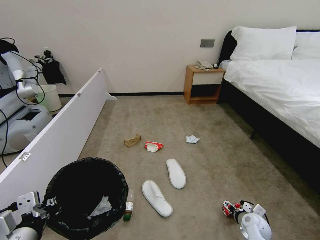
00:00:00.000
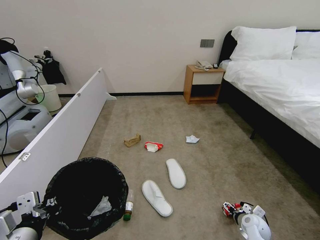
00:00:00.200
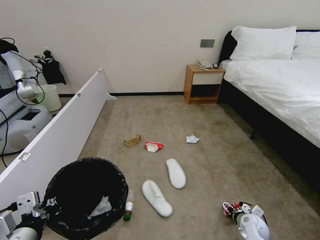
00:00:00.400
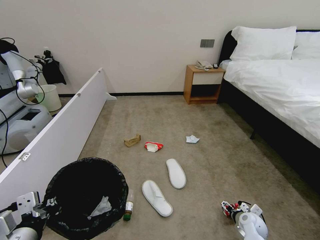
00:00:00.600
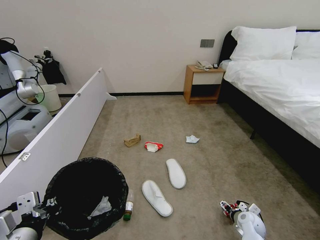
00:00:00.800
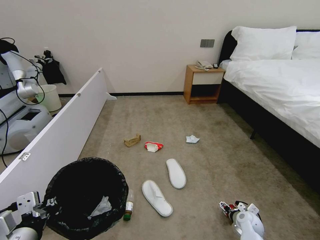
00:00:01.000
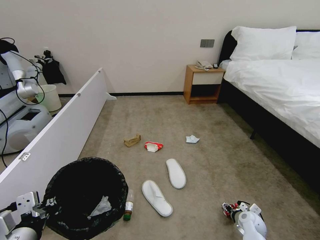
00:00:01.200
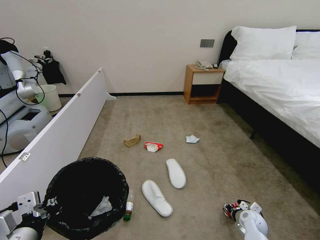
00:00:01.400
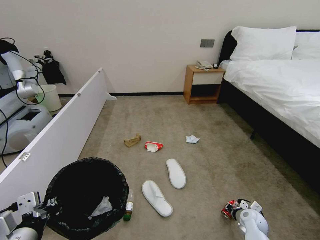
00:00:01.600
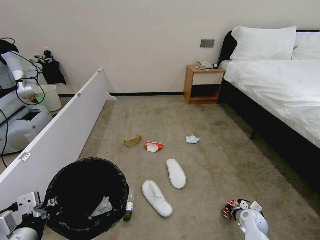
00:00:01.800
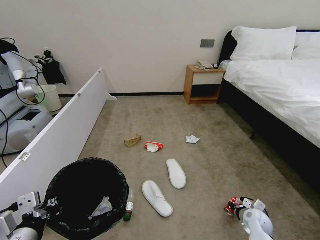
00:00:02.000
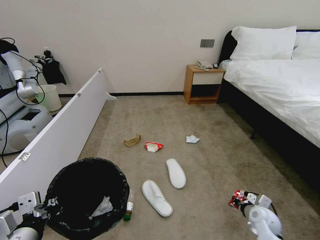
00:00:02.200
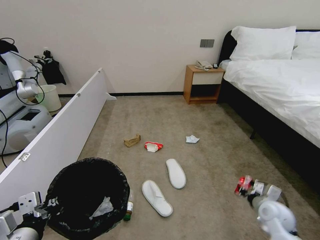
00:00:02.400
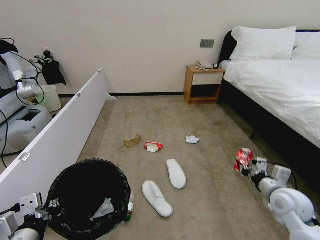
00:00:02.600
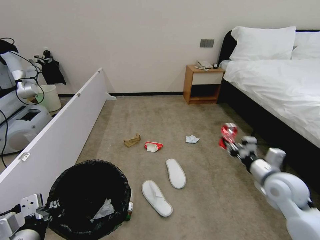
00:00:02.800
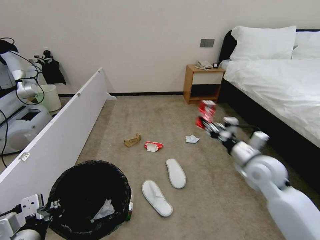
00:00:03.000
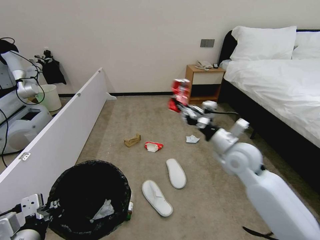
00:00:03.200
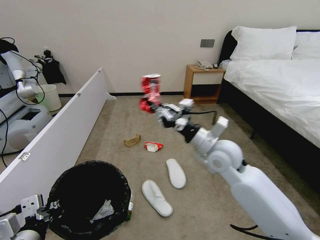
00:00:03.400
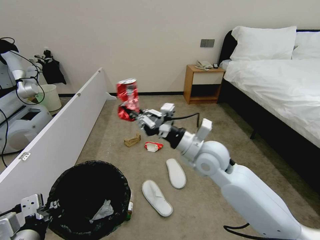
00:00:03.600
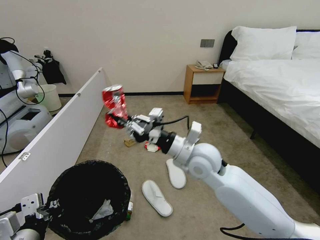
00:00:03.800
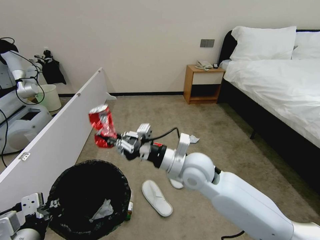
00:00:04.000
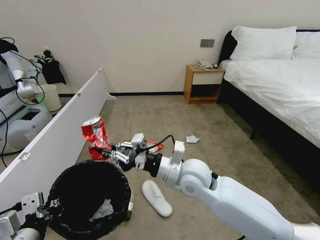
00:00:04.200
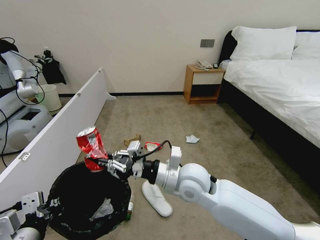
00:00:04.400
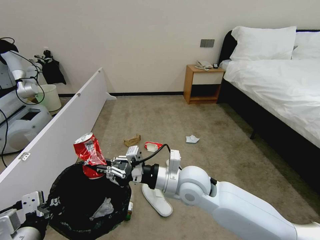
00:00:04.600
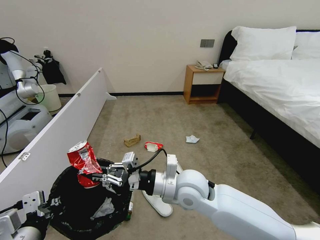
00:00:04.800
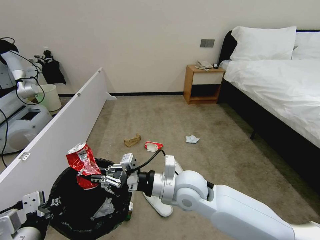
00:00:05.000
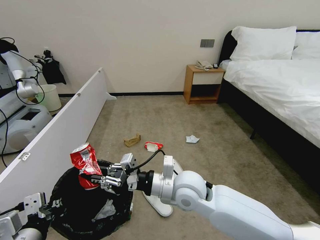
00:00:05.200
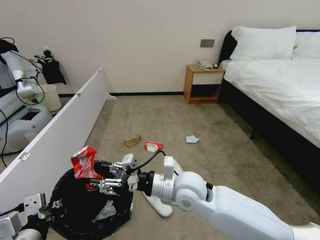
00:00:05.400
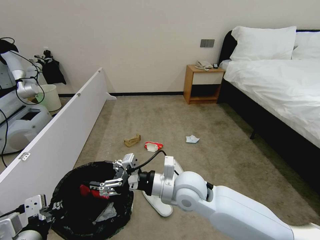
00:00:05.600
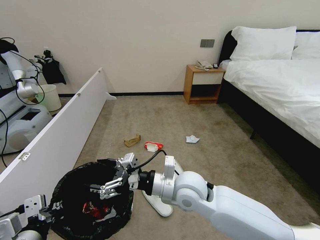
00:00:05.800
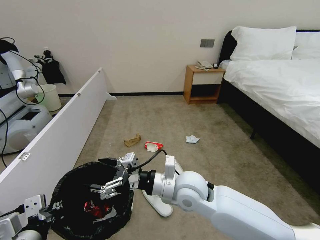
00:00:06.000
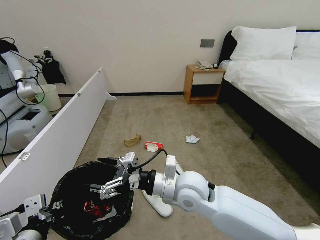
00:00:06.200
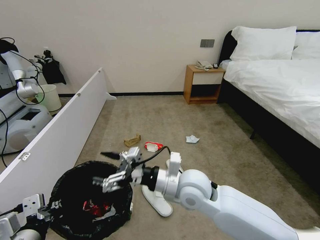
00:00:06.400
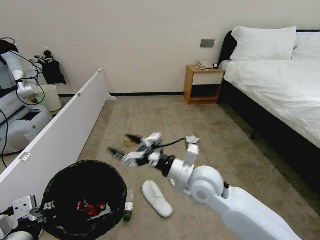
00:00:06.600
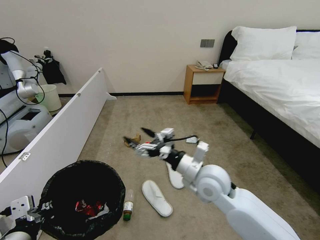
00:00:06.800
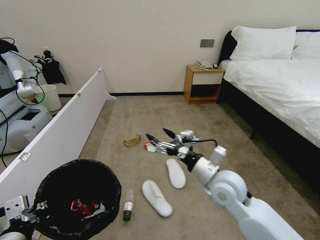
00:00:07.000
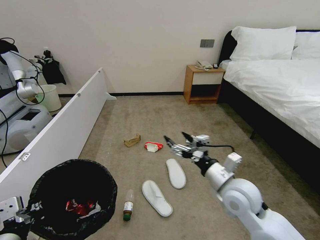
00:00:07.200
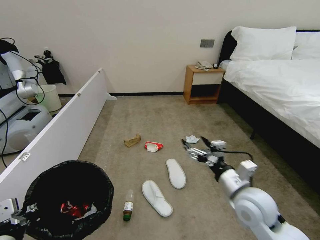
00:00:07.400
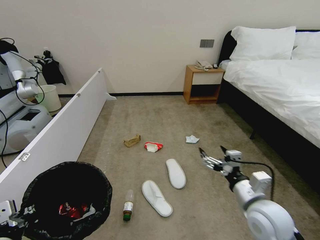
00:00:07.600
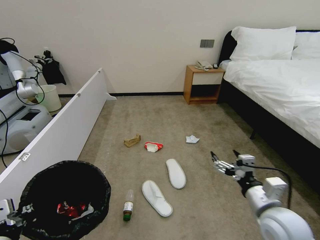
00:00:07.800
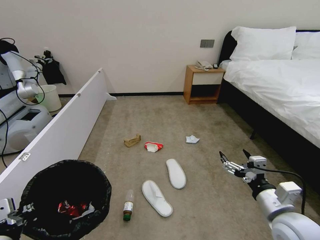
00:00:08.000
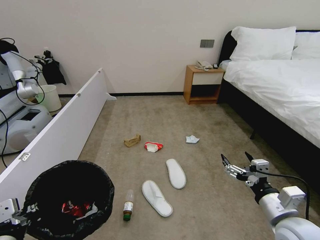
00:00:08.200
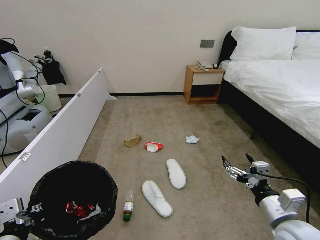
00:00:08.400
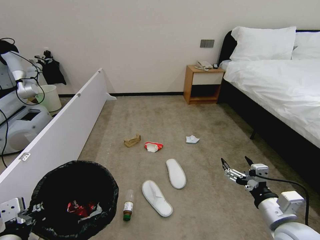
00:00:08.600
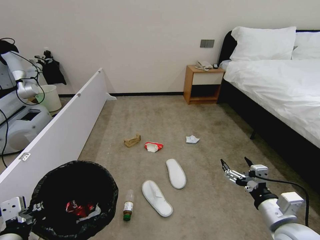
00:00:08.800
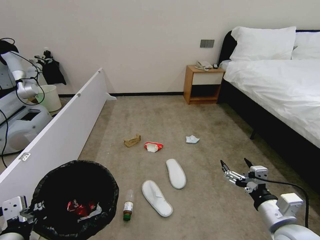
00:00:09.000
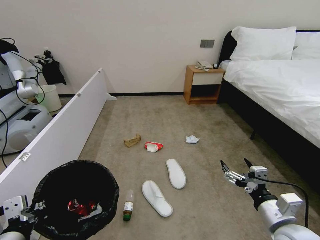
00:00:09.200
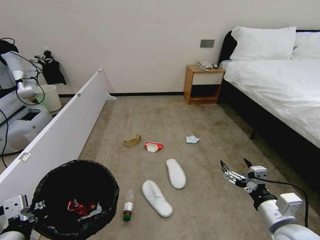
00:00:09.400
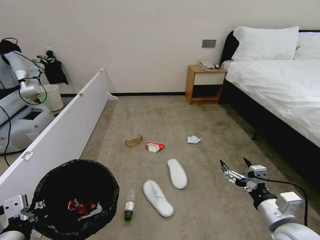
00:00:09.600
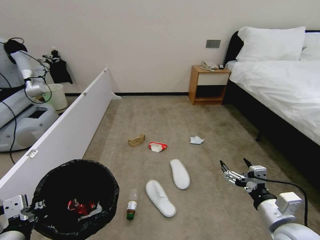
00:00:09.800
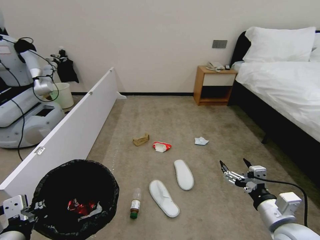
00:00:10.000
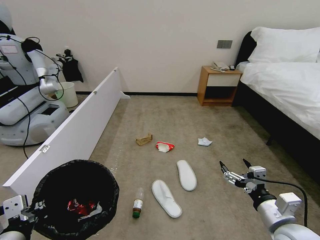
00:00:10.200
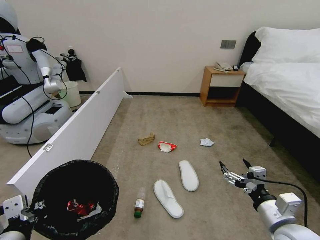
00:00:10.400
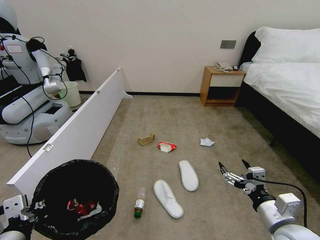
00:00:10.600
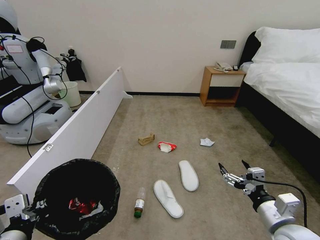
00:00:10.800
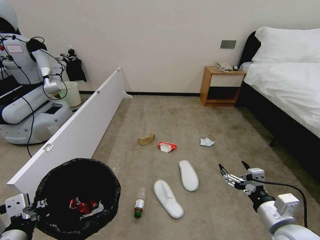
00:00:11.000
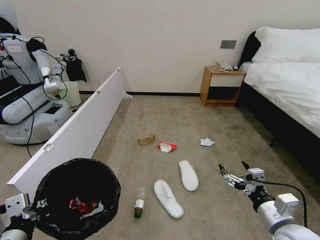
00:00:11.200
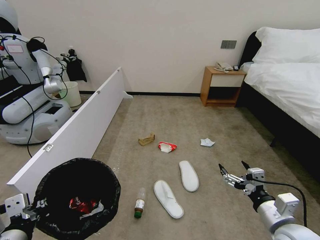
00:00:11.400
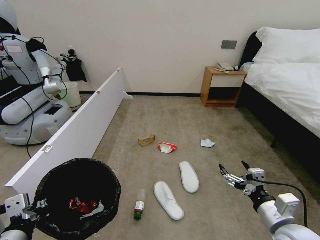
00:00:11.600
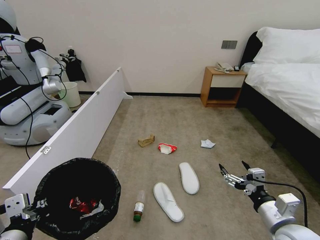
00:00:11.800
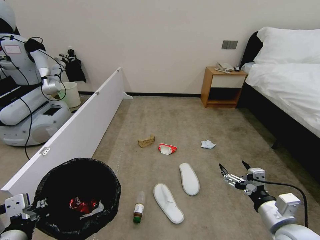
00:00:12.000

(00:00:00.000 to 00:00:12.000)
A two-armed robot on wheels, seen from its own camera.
Task of the whole recording: Pick up the trash bin, then pick up the garbage from the floor and place it into the trash bin.
00:00:00.000 - 00:00:01.600: The right gripper closes up.
00:00:01.600 - 00:00:03.000: The right gripper heads upward, covering approximately 30 cm.
00:00:03.000 - 00:00:04.400: The right gripper moves to the left, approximately 20 cm.
00:00:04.400 - 00:00:06.000: The right gripper opens.
00:00:06.000 - 00:00:07.600: The right gripper shifts approximately 20 cm to the right.
00:00:07.600 - 00:00:09.000: The right gripper heads backward and to the right, covering about 10 cm.
00:00:10.400 - 00:00:12.000: Neither gripper changes place.

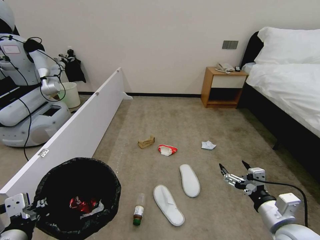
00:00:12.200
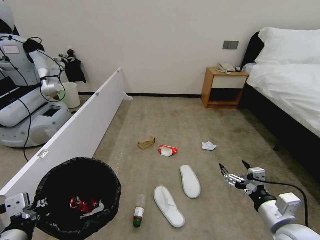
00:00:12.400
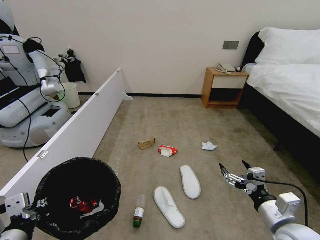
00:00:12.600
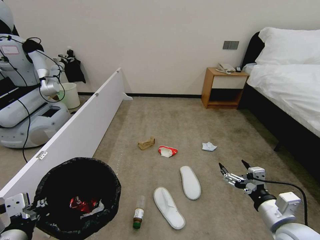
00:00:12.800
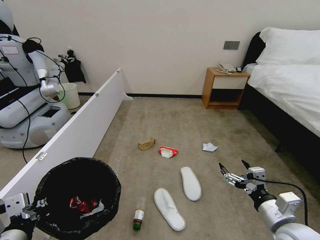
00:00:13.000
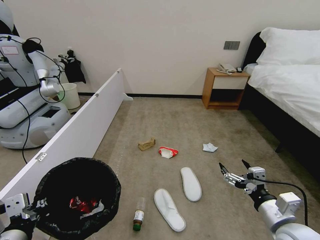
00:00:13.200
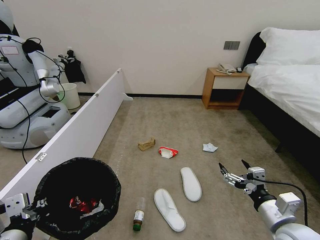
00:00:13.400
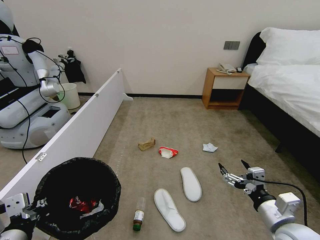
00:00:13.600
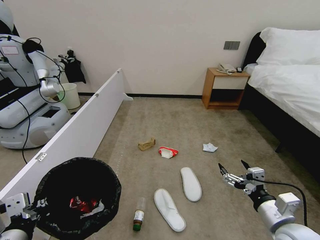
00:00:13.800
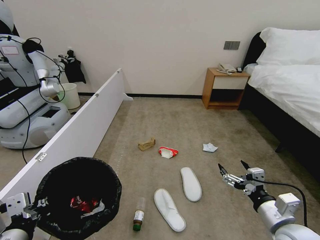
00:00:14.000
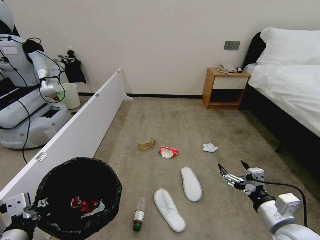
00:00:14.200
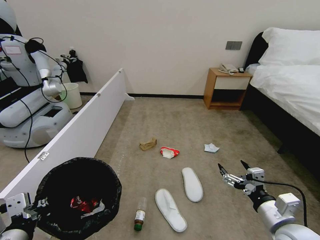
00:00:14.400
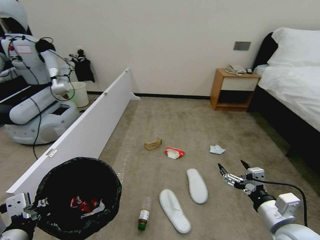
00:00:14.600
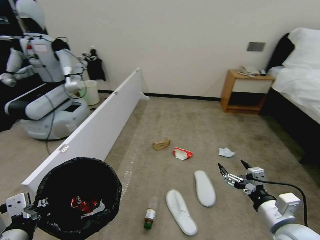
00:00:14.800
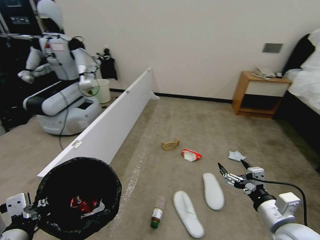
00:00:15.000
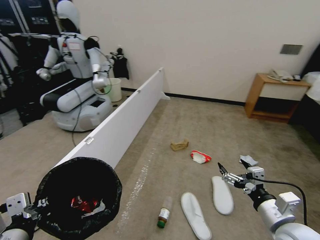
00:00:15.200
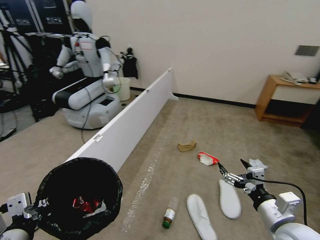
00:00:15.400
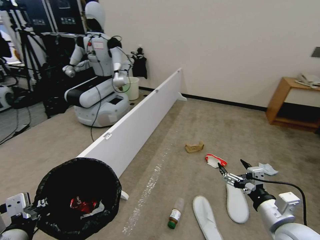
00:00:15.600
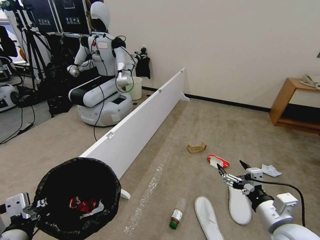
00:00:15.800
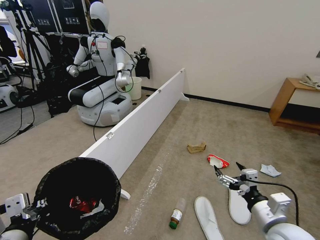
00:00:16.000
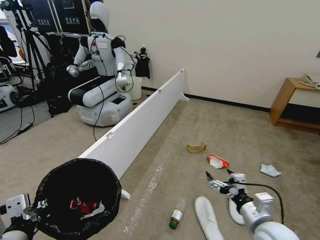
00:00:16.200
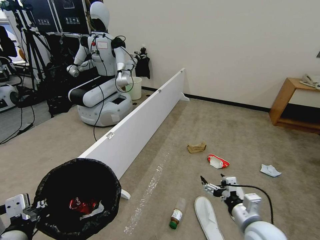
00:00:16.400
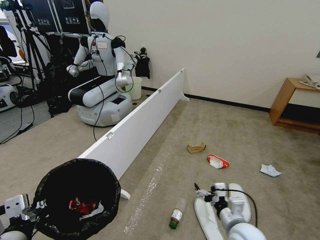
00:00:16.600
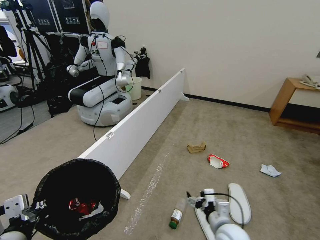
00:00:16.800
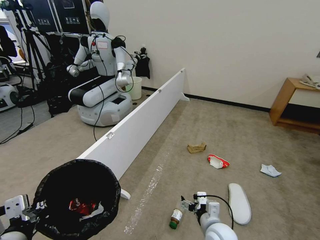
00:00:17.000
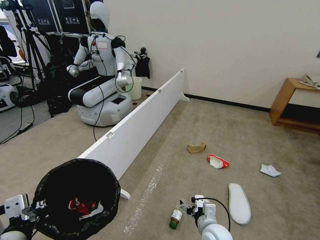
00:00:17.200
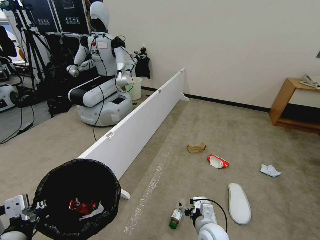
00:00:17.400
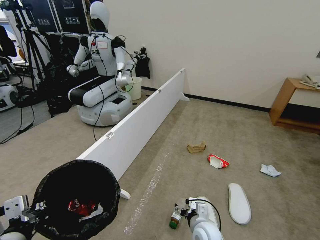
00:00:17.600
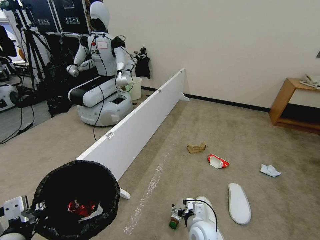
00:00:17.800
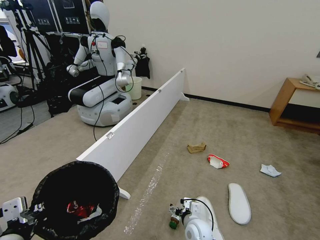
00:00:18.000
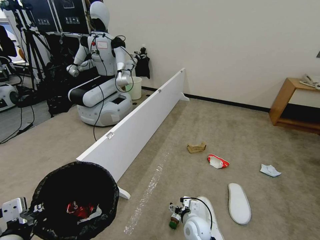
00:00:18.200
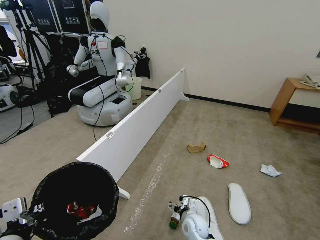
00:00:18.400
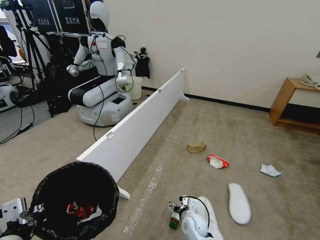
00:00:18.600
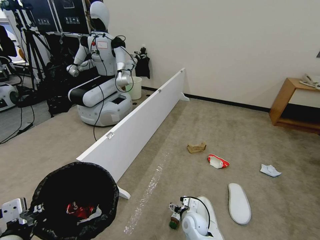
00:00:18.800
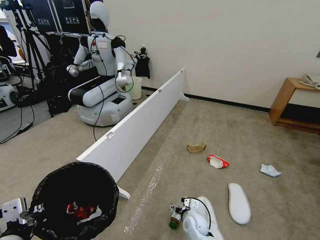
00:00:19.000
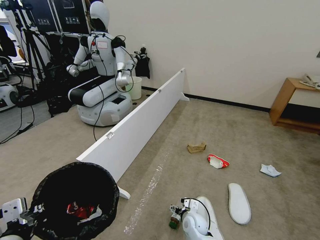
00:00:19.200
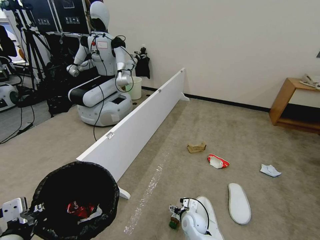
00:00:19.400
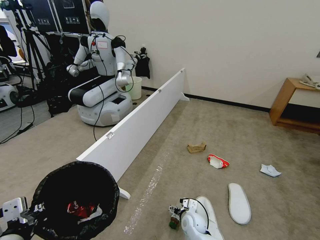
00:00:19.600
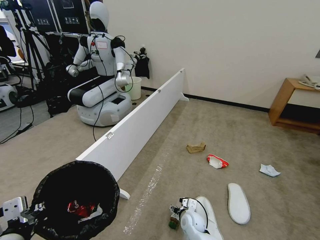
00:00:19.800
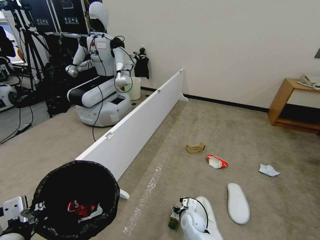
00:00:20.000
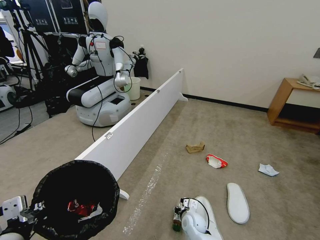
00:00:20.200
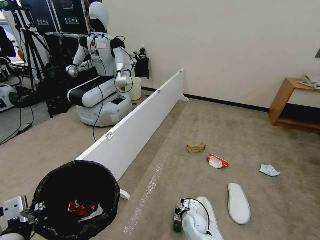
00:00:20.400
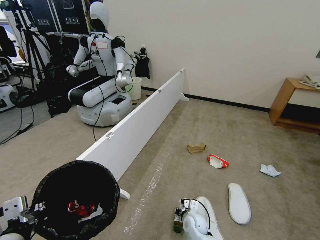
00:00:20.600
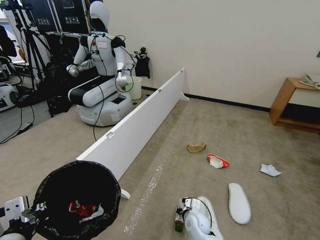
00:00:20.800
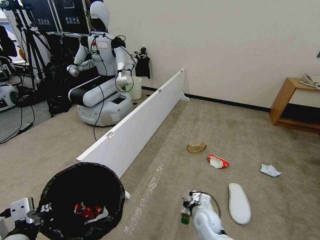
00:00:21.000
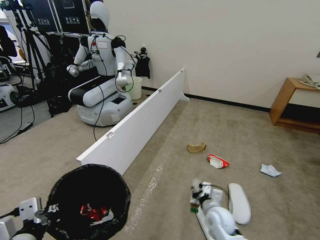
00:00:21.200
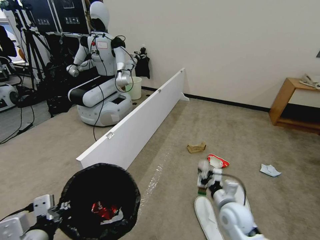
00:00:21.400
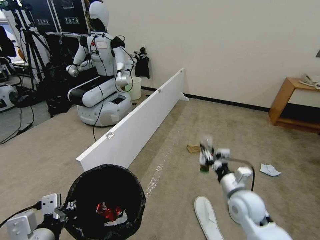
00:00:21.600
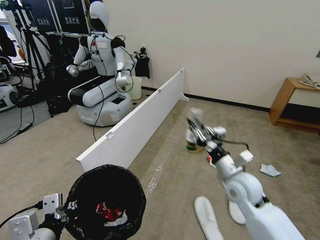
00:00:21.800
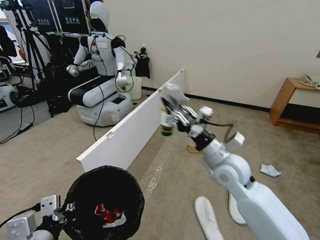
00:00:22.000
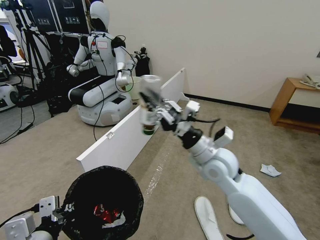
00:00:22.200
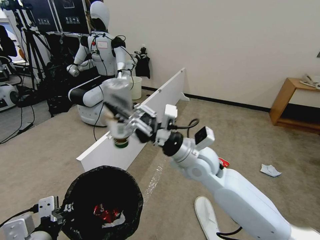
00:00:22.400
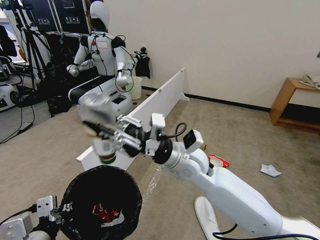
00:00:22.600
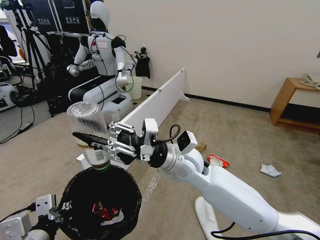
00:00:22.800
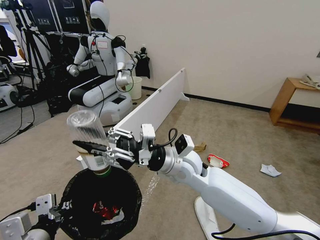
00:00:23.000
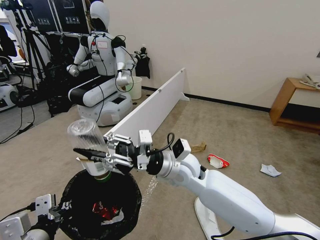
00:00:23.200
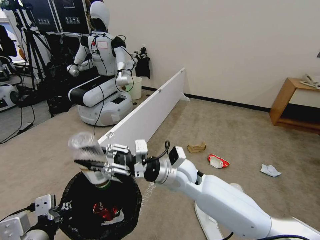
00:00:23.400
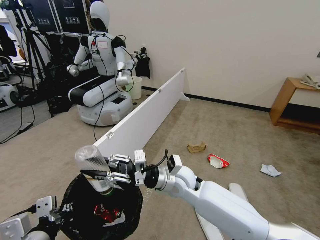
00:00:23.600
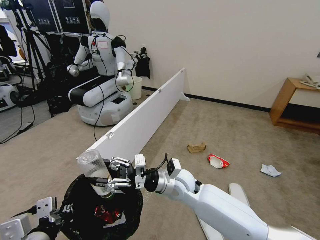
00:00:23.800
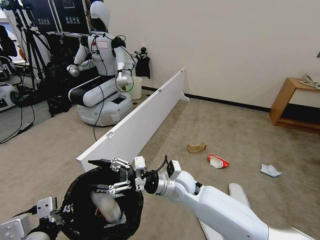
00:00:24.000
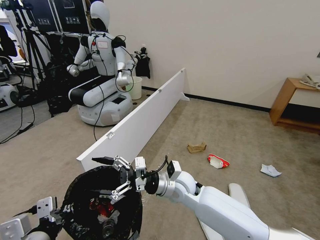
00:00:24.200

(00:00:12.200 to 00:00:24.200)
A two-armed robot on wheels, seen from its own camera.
Task of the whole recording: Pick up the trash bin, then pick up the garbage from the floor and place it into the trash bin.
00:00:12.200 - 00:00:13.800: Both grippers stay put.
00:00:15.200 - 00:00:16.600: The right gripper heads downward and to the left, covering some 10 cm.
00:00:16.600 - 00:00:18.200: The right gripper goes about 20 cm downward, to the left and forward.
00:00:18.200 - 00:00:19.800: The right gripper moves some 5 cm.
00:00:19.800 - 00:00:21.200: The right gripper travels upward and to the right by roughly 15 cm, and closes its fingers.
00:00:21.200 - 00:00:22.600: The right gripper is displaced upward and to the left by approximately 30 cm.
00:00:22.600 - 00:00:24.200: The right gripper moves downward, about 10 cm, and opens its fingers.
